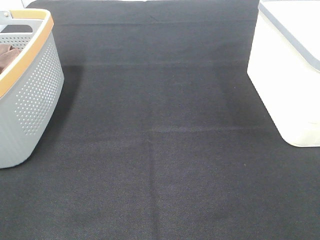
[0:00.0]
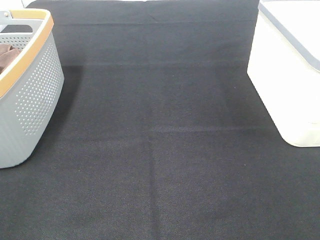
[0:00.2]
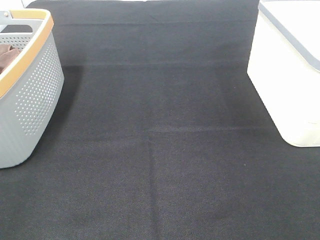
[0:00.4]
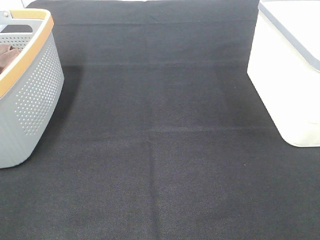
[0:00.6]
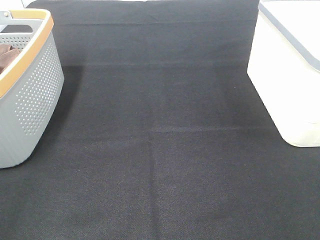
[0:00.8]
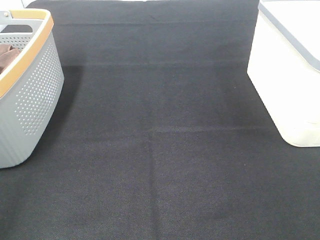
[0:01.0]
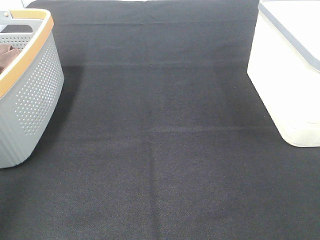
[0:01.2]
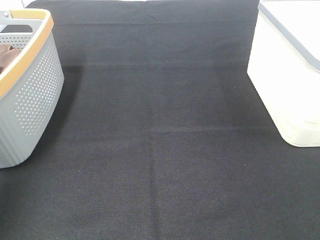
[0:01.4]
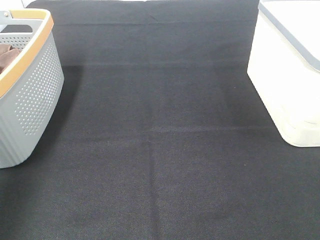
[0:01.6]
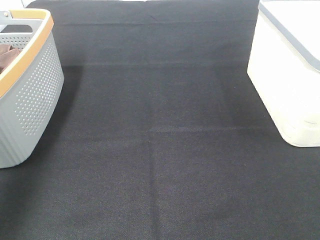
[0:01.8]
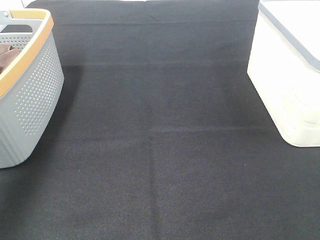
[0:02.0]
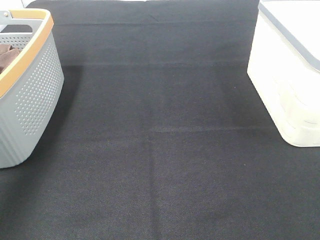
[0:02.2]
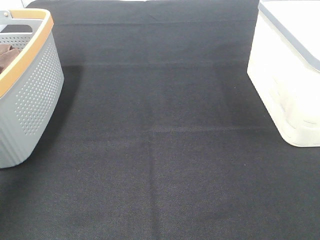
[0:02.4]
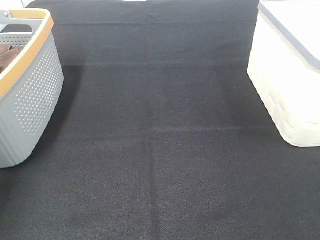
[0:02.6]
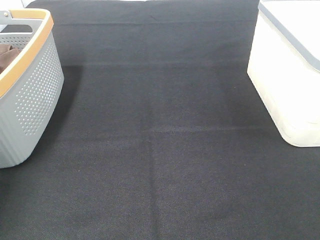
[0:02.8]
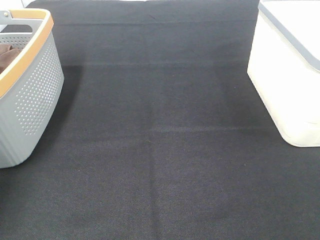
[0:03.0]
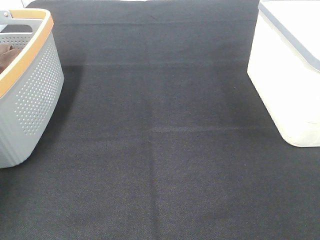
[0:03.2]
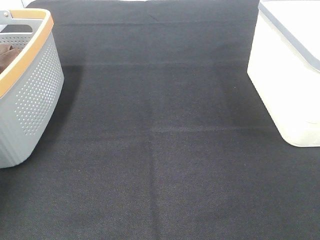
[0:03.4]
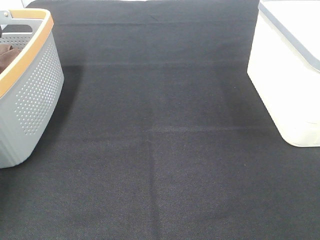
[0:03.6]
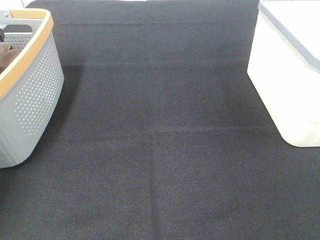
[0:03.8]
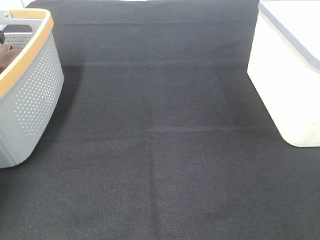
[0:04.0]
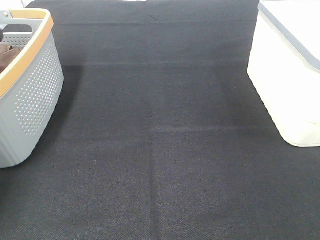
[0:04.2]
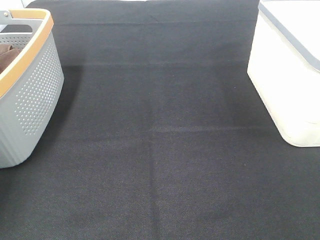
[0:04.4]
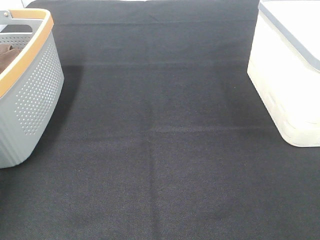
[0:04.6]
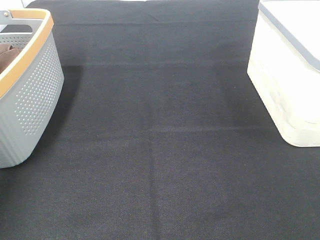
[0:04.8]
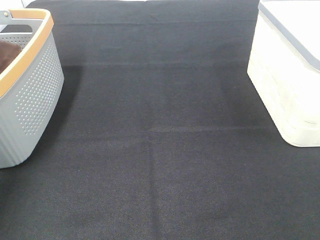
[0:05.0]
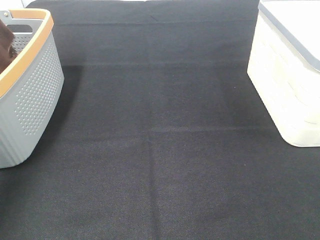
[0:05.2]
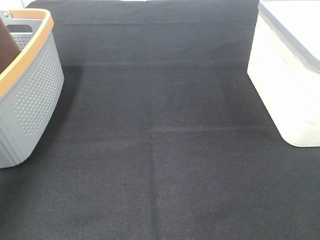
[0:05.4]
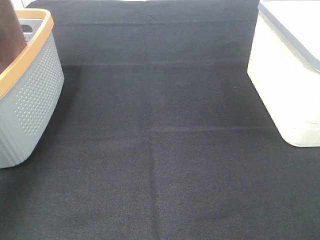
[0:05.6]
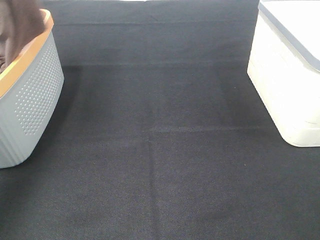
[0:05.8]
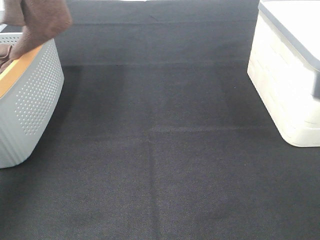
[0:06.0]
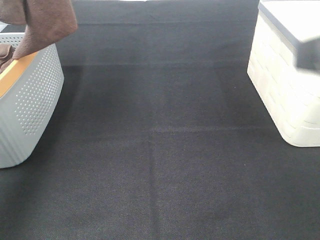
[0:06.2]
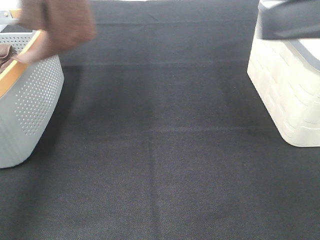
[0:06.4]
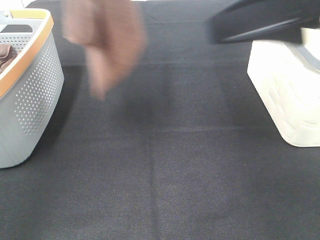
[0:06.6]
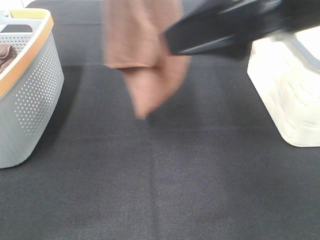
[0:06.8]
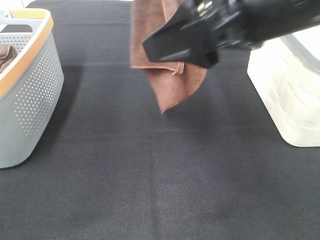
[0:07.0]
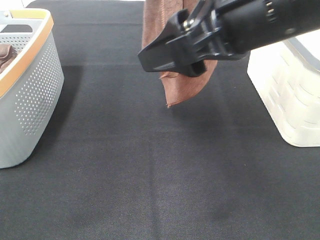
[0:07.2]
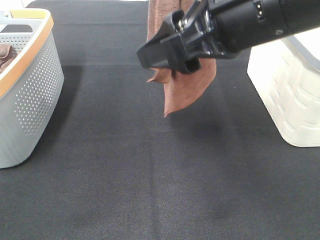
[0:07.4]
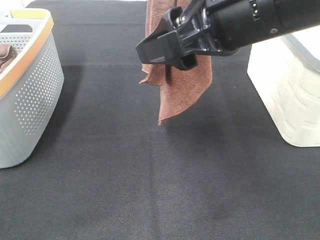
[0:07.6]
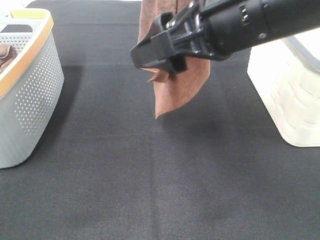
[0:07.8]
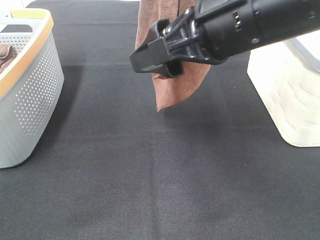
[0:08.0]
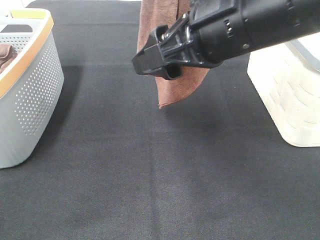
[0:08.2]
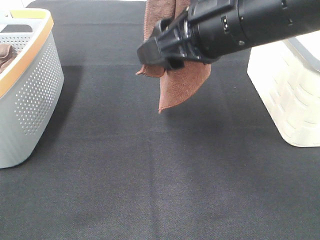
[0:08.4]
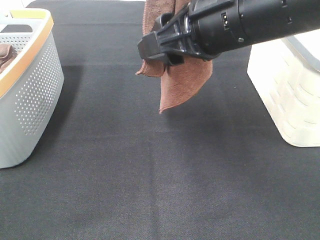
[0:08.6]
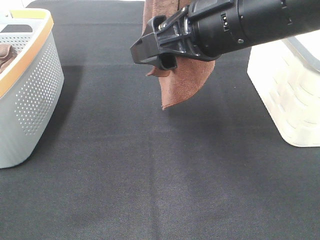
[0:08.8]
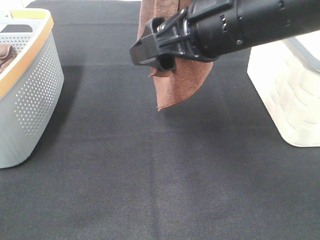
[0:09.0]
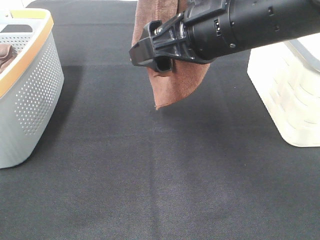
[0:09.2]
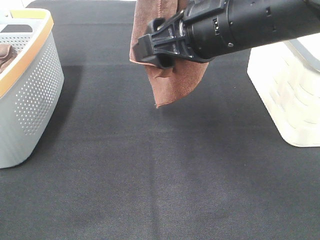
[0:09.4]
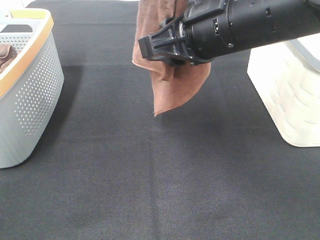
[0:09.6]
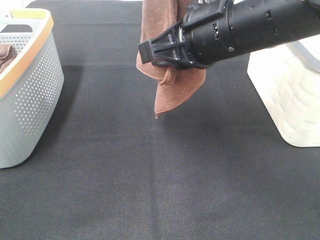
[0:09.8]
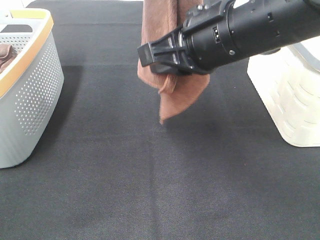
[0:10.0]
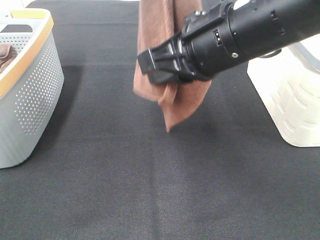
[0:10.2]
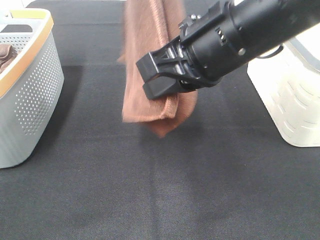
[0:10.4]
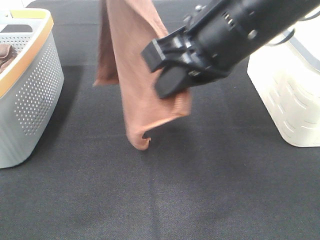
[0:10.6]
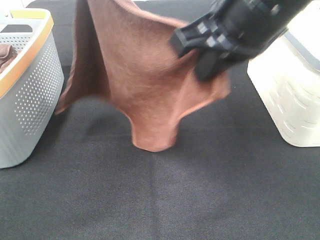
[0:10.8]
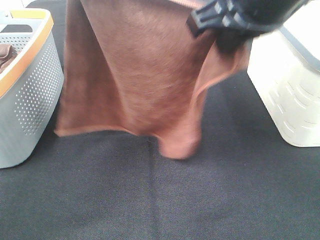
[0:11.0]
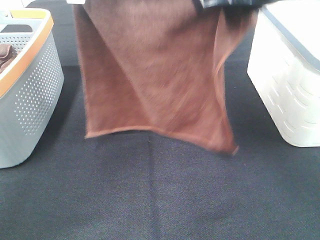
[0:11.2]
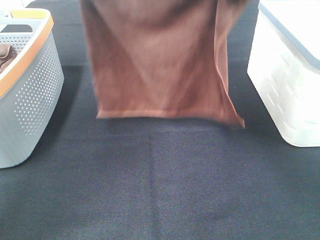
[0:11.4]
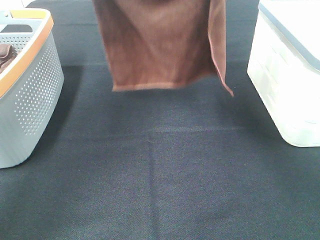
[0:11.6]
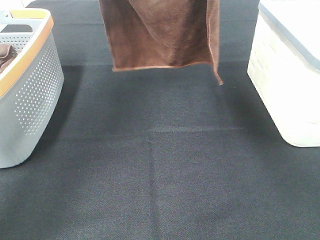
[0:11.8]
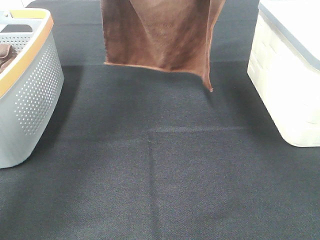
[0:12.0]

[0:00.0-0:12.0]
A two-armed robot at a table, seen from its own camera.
Task of the whole recording: Remove the towel and place it.
Step, 0:04.8 to 0:08.2: Right hand: grab a corner of the brown towel and straighten it.
0:00.0 to 0:01.6: The left gripper shifts some 25 cm forward and upward.
0:01.6 to 0:03.0: The left gripper goes roughly 25 cm forward and downward.
0:04.4 to 0:06.0: The left gripper is displaced upward and backward by approximately 30 cm. The right gripper heads forward, upward and to the left, covering roughly 10 cm.
0:06.0 to 0:07.6: The left gripper shifts some 20 cm to the right. The right gripper goes roughly 20 cm to the left and forward.
0:07.6 to 0:09.0: The grippers make only small movements.
0:09.0 to 0:10.4: The right gripper closes.
0:10.4 to 0:12.0: The right gripper is displaced forward by some 15 cm. Meanwhile the left gripper goes some 20 cm forward and downward.

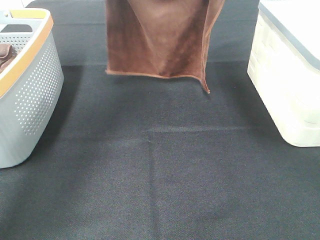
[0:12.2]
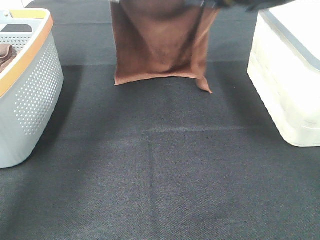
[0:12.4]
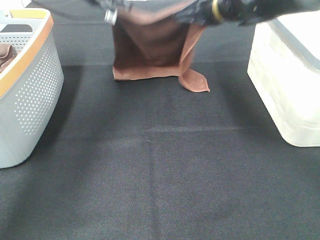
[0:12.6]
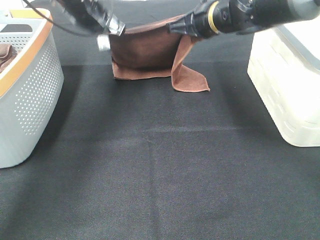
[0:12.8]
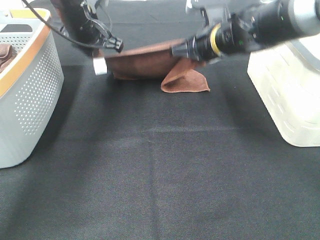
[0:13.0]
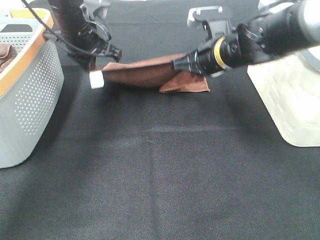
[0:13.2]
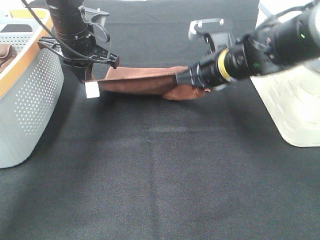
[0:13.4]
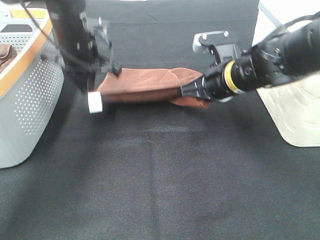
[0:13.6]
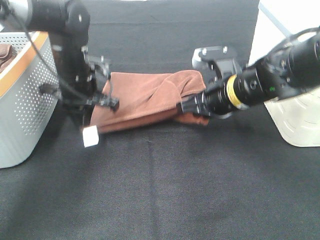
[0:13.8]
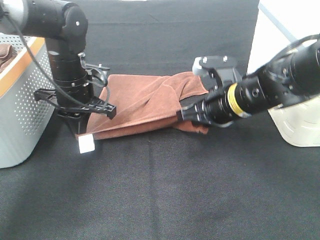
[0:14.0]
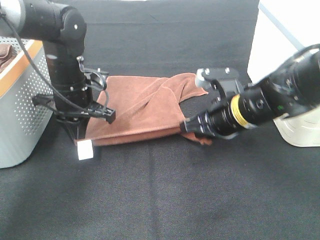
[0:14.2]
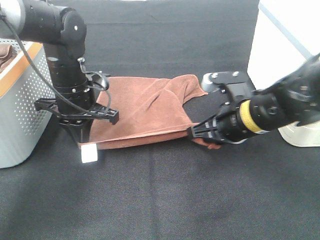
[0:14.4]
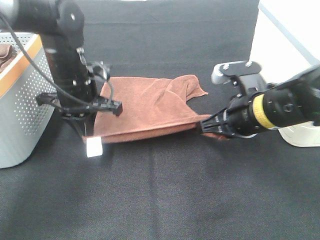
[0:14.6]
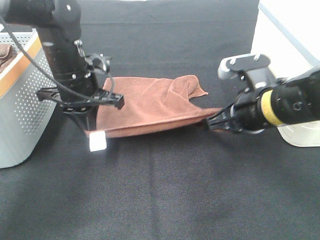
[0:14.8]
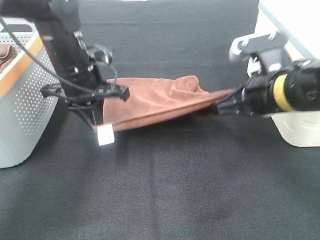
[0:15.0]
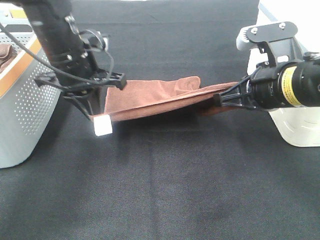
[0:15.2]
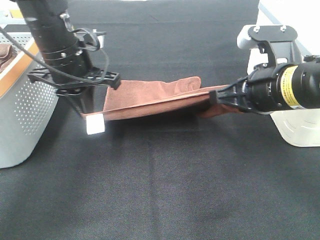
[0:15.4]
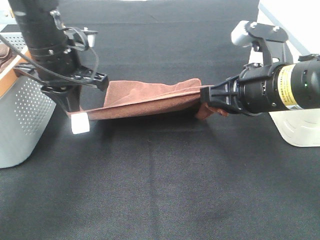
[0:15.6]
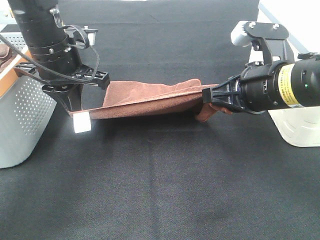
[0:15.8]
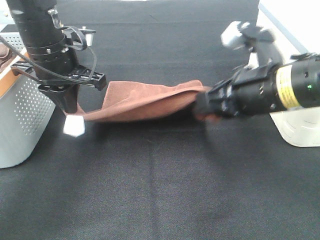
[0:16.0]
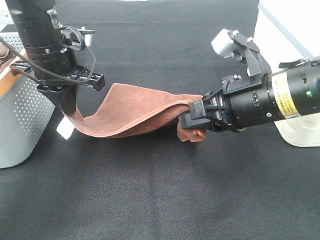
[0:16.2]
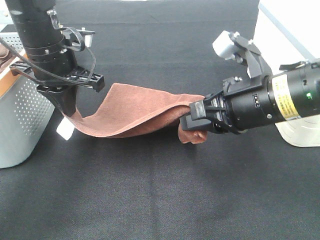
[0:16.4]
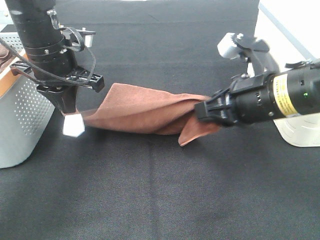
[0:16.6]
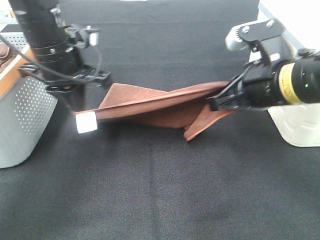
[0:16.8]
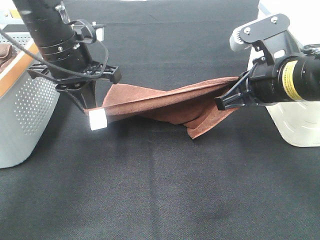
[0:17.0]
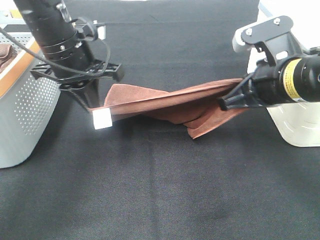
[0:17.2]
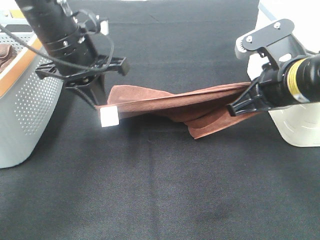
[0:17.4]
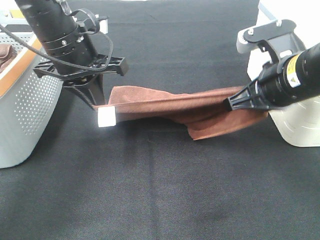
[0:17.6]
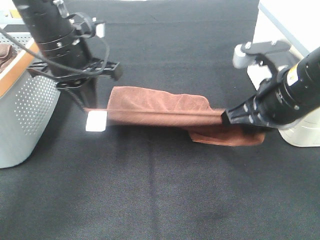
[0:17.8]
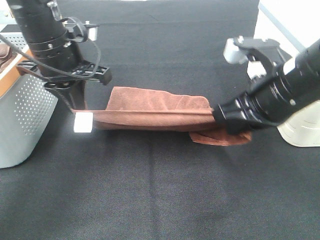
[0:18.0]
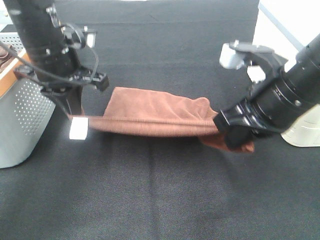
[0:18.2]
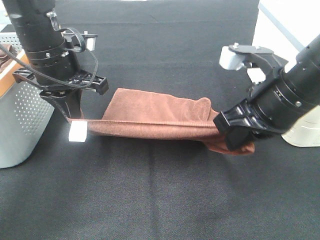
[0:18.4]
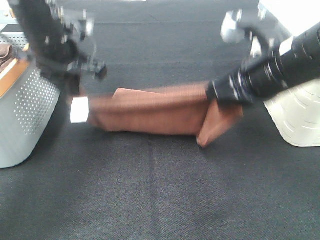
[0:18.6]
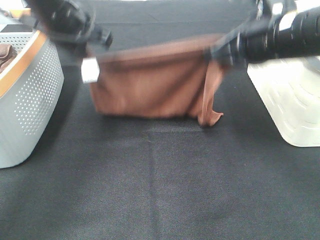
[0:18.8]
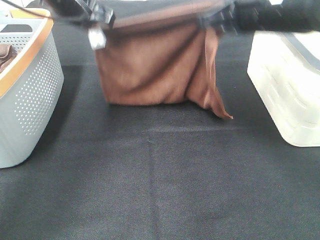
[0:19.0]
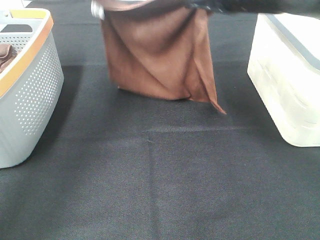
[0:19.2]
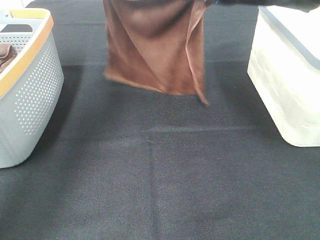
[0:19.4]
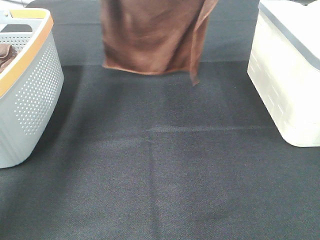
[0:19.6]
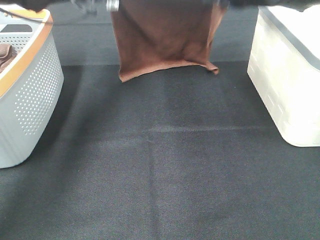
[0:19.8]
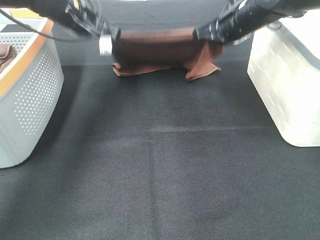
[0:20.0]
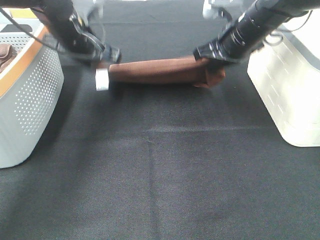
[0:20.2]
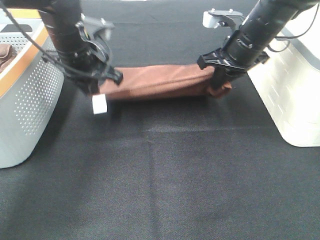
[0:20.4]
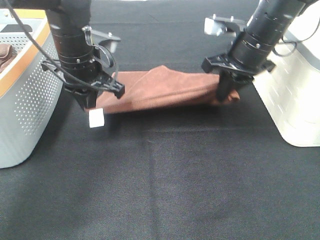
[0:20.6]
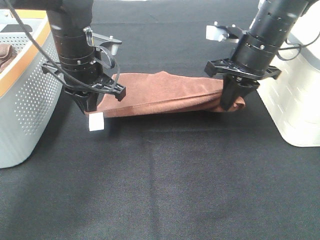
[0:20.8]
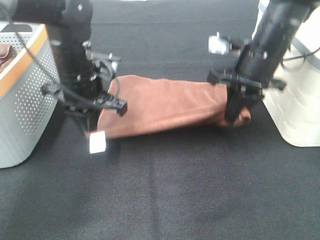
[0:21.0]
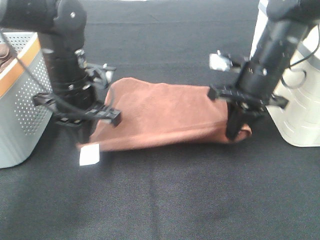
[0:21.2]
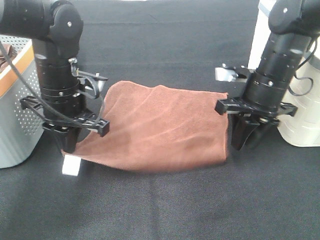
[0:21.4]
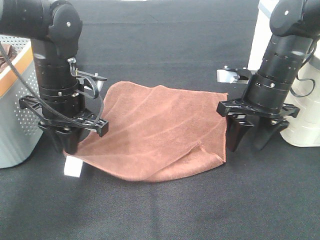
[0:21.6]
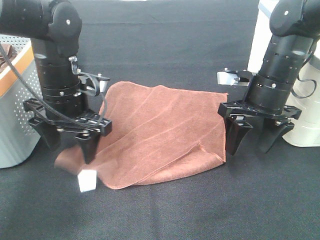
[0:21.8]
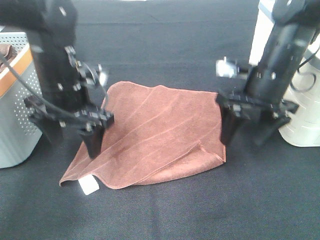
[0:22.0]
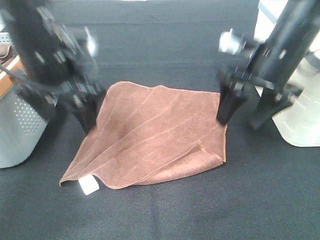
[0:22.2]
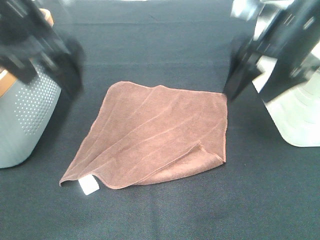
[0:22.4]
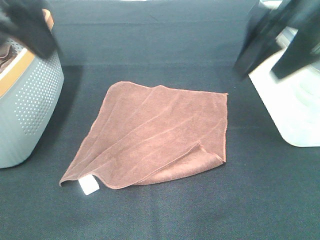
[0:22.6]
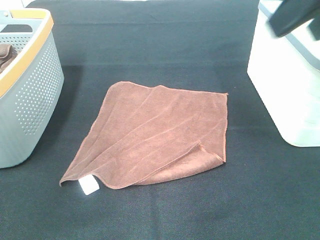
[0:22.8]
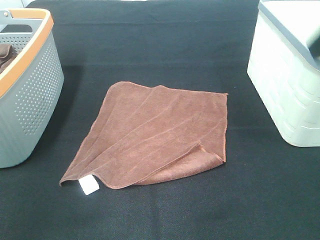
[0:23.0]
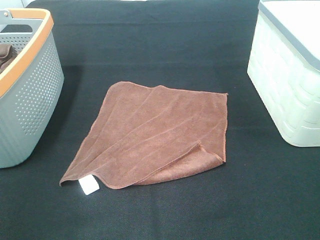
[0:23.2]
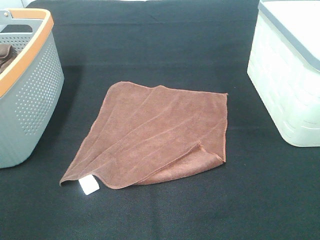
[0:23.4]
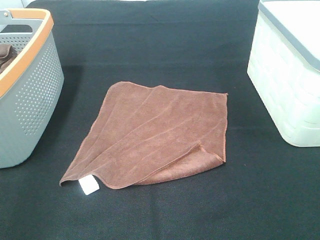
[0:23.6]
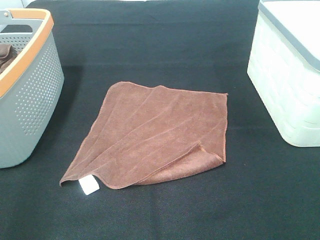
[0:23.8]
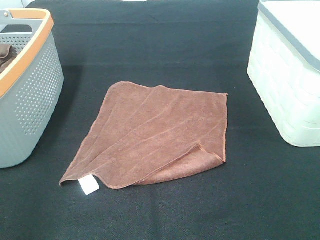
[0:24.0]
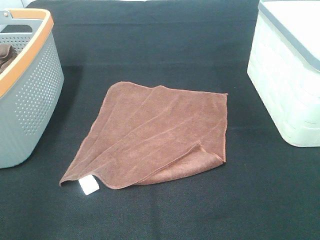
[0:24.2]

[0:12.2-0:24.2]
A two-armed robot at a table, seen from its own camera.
Task of the whole recording: Remove the towel and place it.
Step, 0:12.2 to 0:16.2: Right hand: spread the brown towel flat on the table.
Step, 0:12.2 to 0:16.6: Left hand: spread the brown towel flat on the table.
0:12.2 to 0:13.8: The two grippers go some 20 cm downward and backward.
0:13.8 to 0:15.2: The left gripper goes some 5 cm upward; the right gripper shifts approximately 10 cm upward and backward.
0:18.2 to 0:19.8: The left gripper shifts approximately 15 cm forward. The right gripper moves forward, roughly 25 cm.
0:19.8 to 0:21.2: Both grippers travel together backward and downward, about 15 cm.
0:21.2 to 0:22.6: The two grippers go approximately 25 cm upward and backward. The right gripper opens its fingers; the left gripper opens.
0:22.6 to 0:24.2: The left gripper moves backward, downward and to the left, approximately 25 cm. The right gripper shifts some 25 cm backward.
